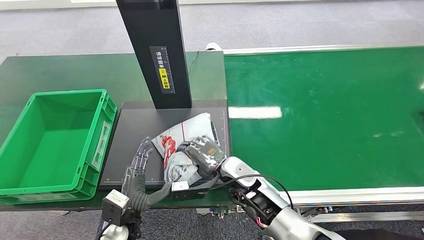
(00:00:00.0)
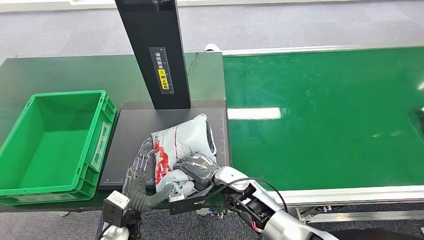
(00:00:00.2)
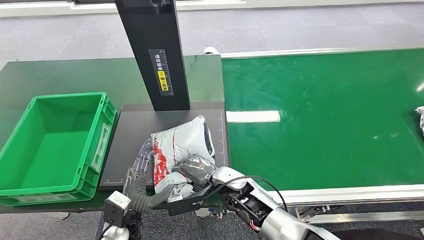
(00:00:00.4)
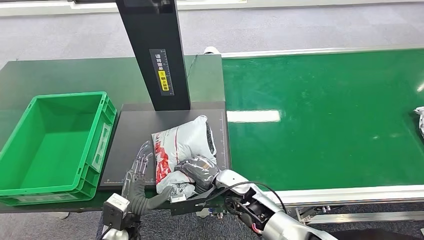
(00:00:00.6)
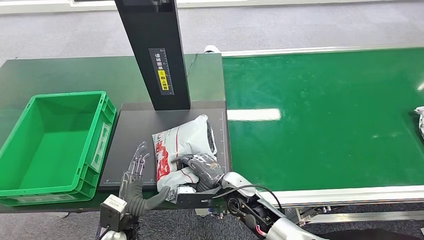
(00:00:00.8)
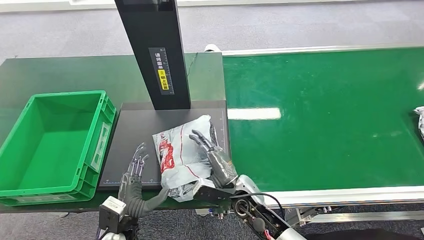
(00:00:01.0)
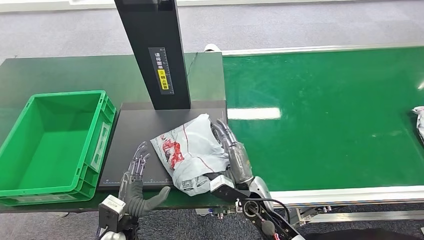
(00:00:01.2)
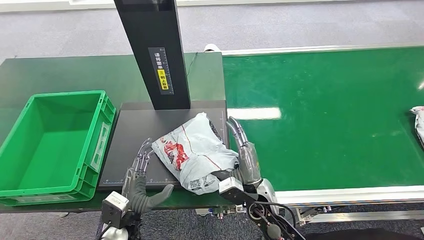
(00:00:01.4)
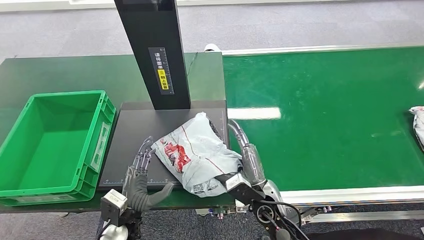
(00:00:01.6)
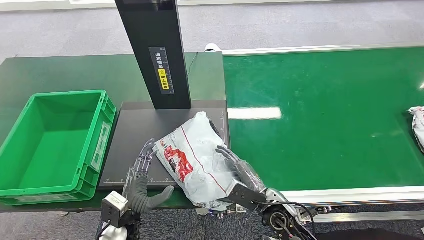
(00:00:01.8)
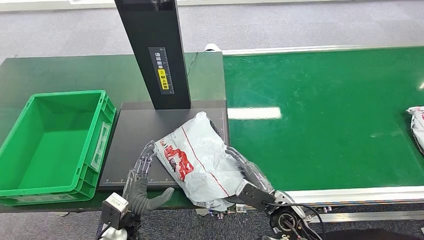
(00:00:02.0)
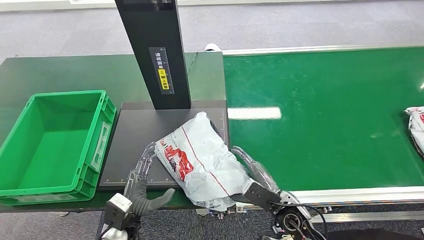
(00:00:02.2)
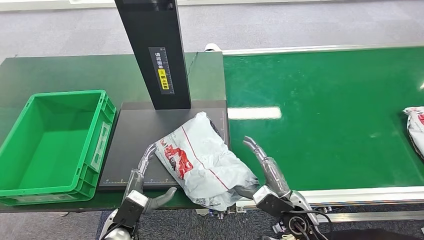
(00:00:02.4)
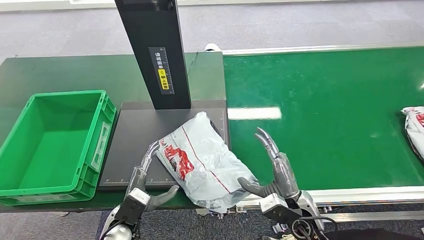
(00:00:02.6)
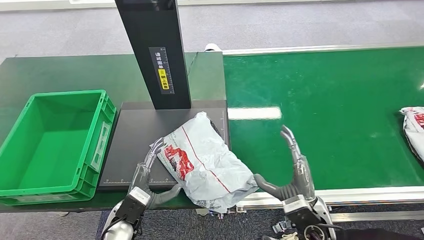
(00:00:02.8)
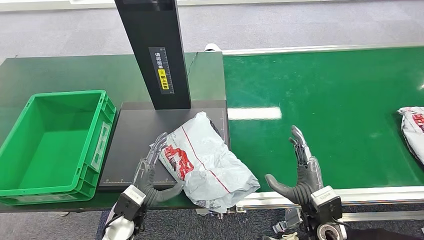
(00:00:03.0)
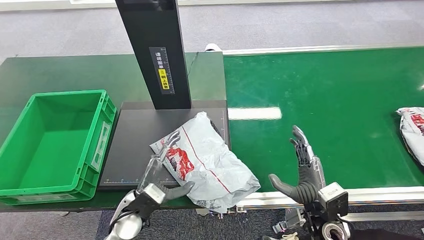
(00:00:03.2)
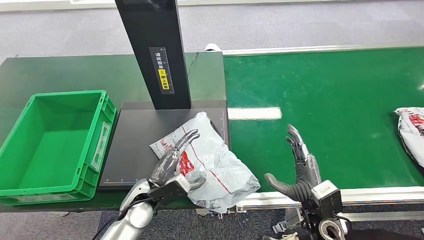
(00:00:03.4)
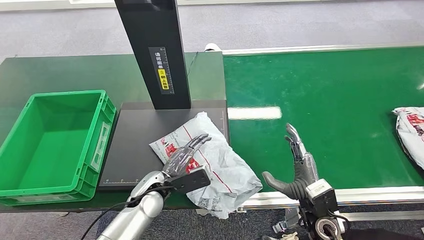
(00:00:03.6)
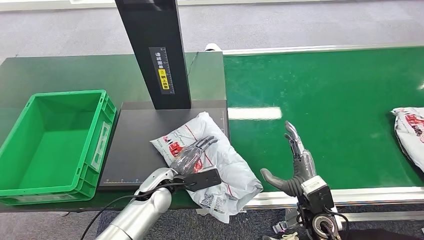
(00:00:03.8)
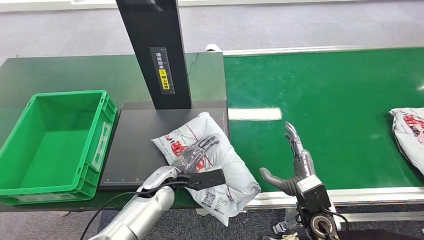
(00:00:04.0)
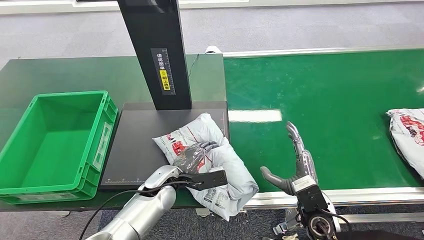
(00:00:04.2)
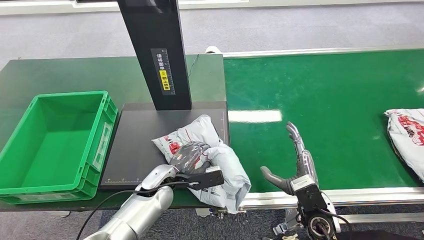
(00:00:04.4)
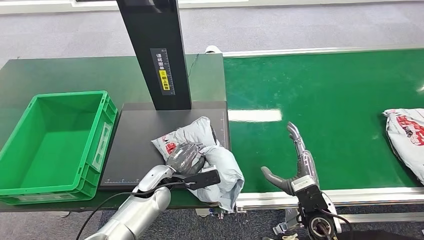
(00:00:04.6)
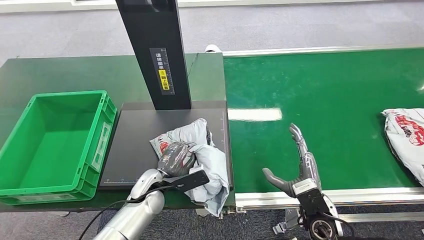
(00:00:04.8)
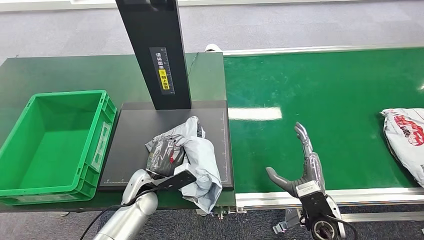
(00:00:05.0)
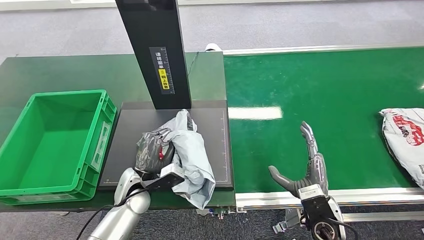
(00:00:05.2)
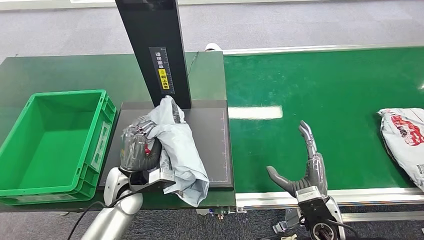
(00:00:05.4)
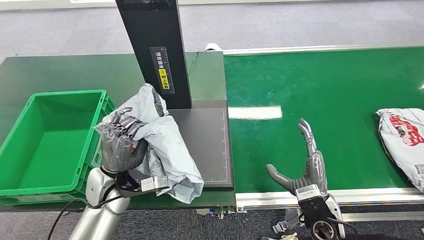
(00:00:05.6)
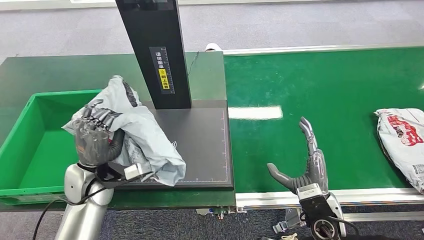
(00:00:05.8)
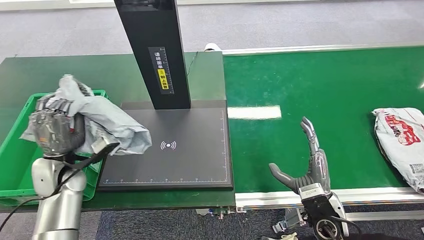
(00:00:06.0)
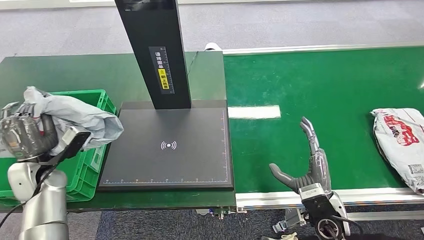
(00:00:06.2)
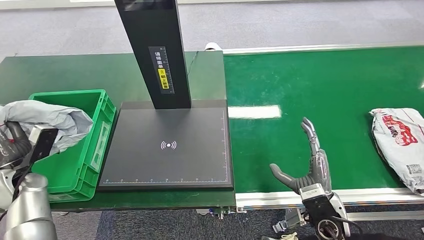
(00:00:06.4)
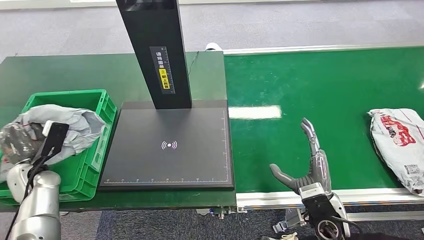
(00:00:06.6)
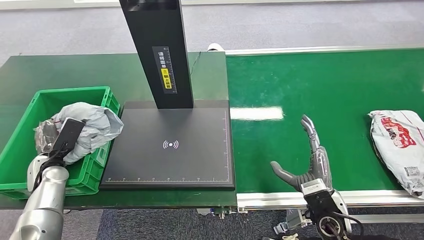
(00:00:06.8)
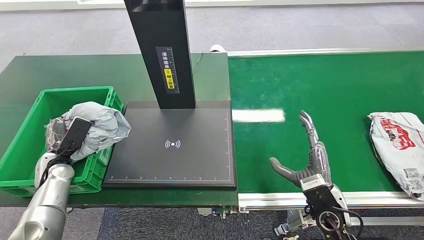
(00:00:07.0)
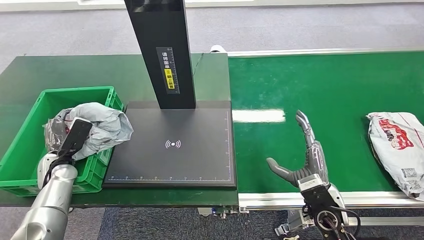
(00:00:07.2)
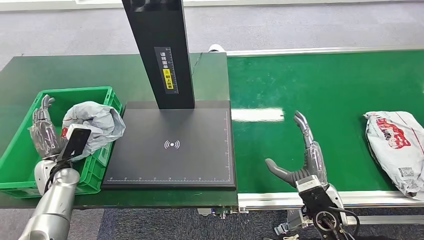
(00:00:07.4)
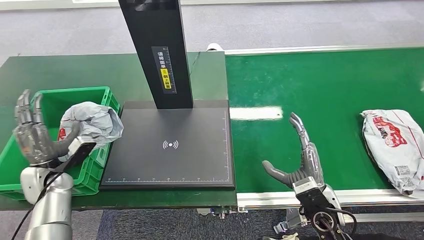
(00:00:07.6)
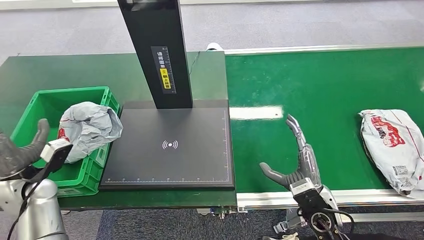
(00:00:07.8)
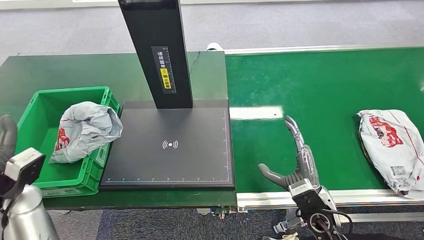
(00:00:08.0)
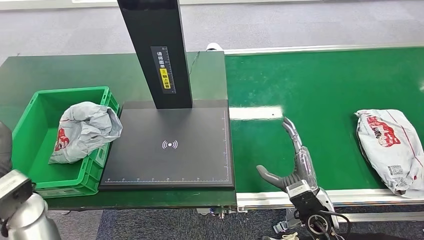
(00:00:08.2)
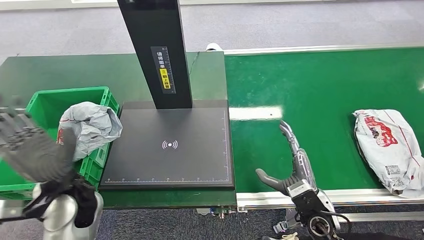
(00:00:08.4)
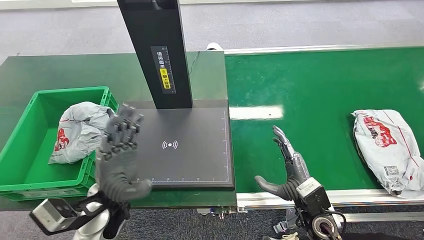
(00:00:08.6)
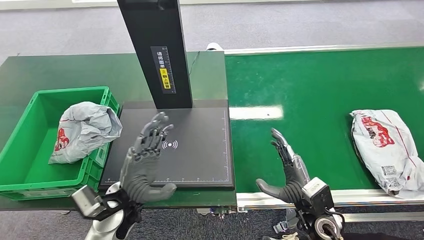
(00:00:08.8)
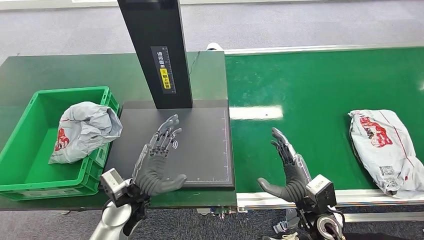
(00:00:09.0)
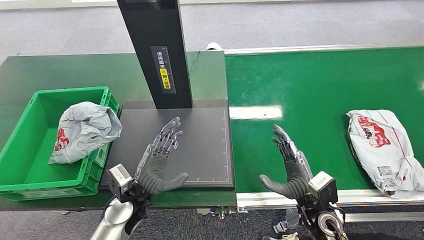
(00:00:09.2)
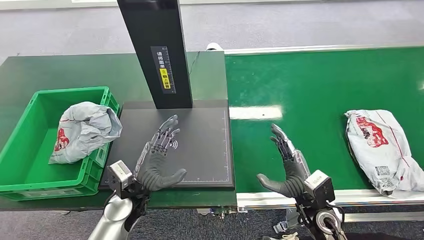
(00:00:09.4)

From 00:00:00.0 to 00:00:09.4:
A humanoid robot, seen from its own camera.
Step, from 00:00:02.0 to 00:00:05.6: Pick up the package from the inbound machine.
Step, from 00:00:05.8 to 00:00:09.2: Place the package into the parcel locker.
From 00:00:00.0 to 00:00:01.6: The right hand goes some 10 cm backward and to the right.
From 00:00:01.6 to 00:00:03.2: The right hand goes some 10 cm to the right.
From 00:00:03.2 to 00:00:04.8: The left hand heads forward, covering about 5 cm.
From 00:00:07.8 to 00:00:09.4: The left hand moves to the right, about 20 cm.

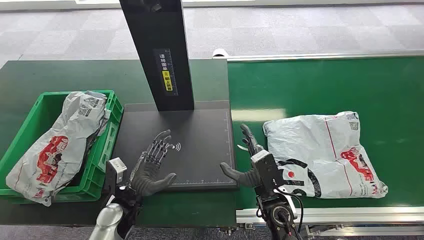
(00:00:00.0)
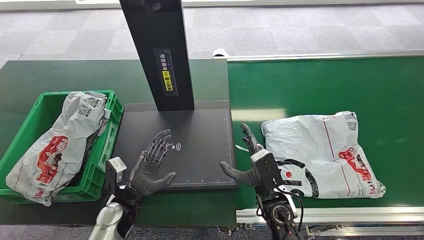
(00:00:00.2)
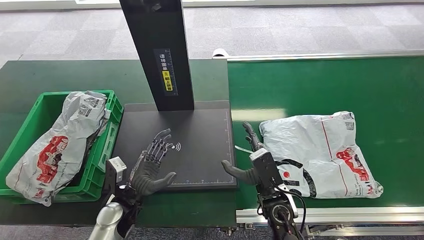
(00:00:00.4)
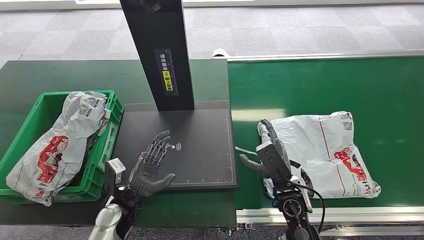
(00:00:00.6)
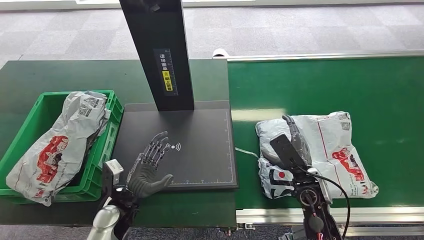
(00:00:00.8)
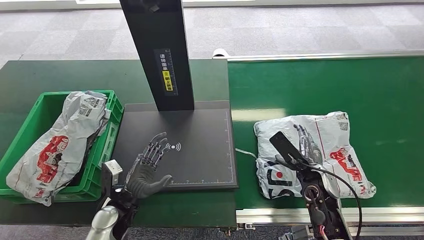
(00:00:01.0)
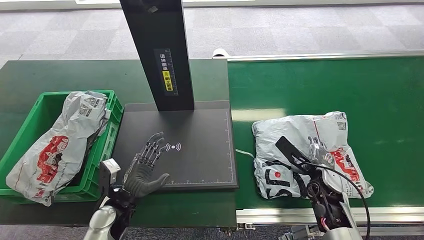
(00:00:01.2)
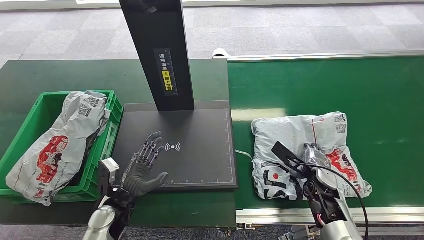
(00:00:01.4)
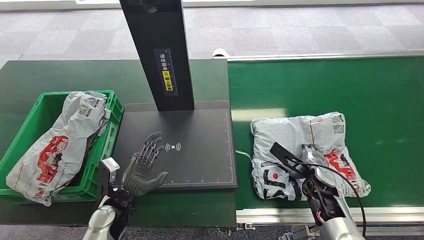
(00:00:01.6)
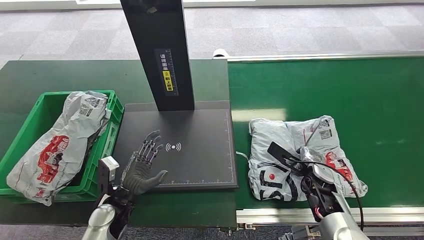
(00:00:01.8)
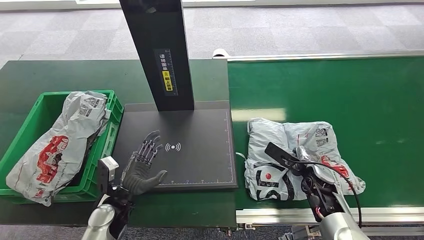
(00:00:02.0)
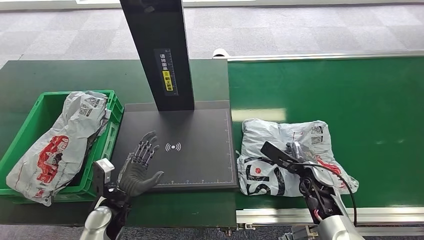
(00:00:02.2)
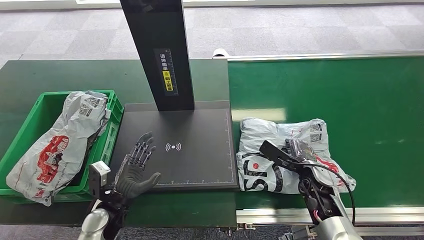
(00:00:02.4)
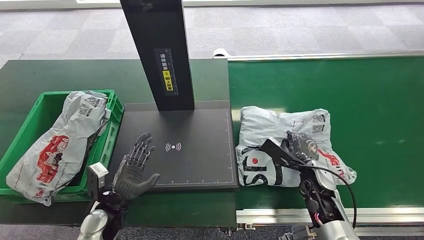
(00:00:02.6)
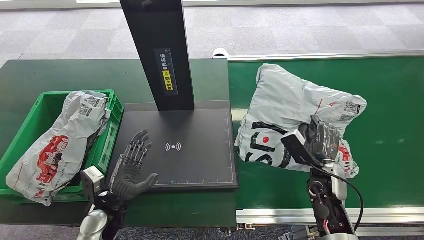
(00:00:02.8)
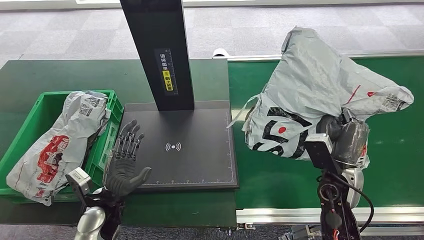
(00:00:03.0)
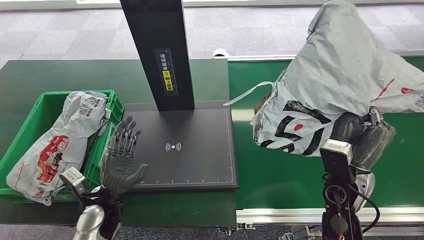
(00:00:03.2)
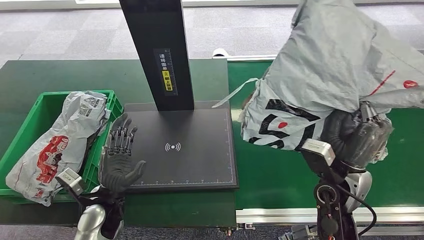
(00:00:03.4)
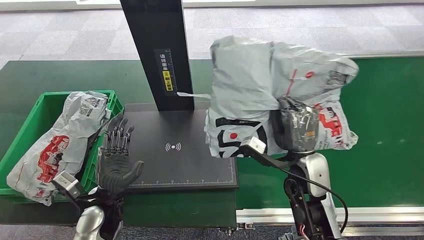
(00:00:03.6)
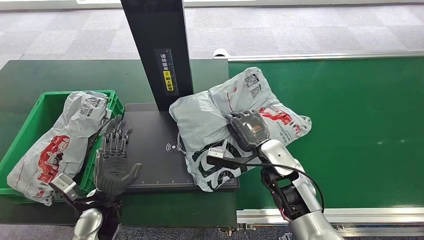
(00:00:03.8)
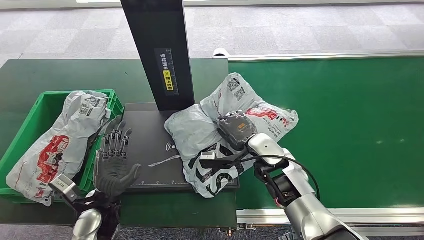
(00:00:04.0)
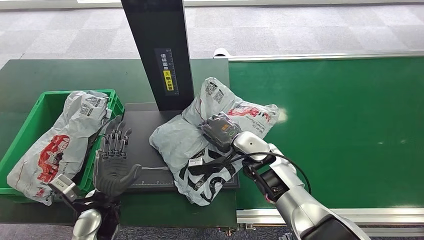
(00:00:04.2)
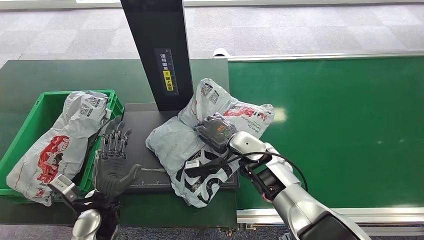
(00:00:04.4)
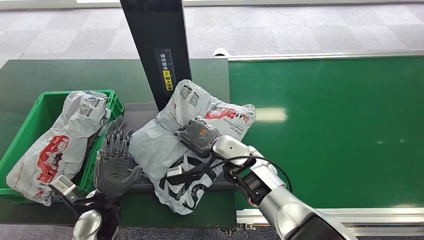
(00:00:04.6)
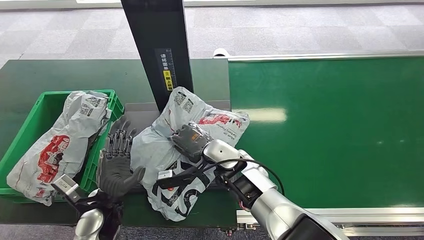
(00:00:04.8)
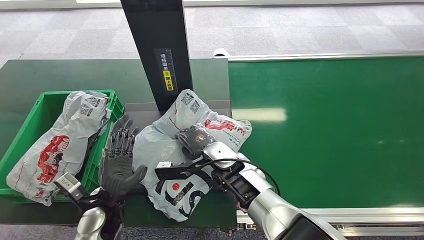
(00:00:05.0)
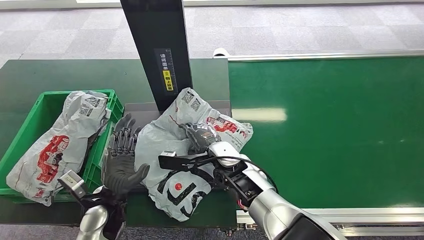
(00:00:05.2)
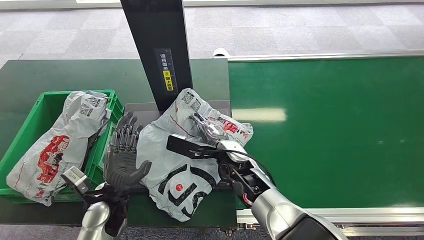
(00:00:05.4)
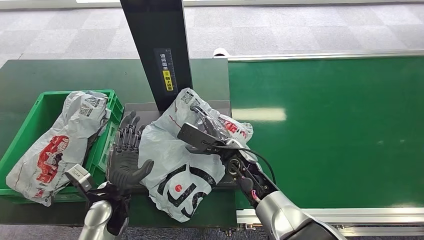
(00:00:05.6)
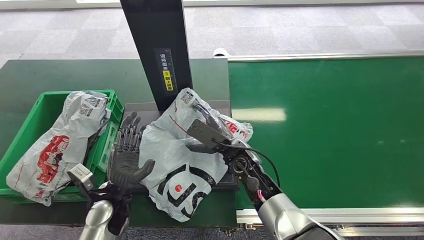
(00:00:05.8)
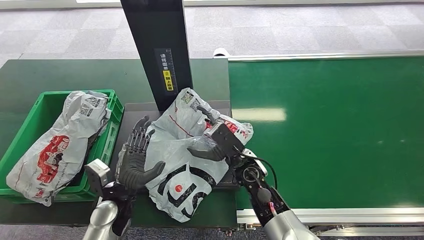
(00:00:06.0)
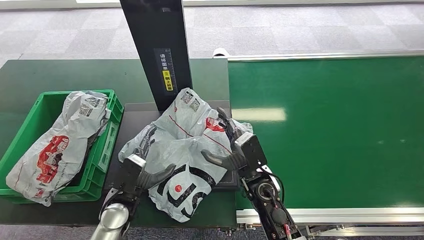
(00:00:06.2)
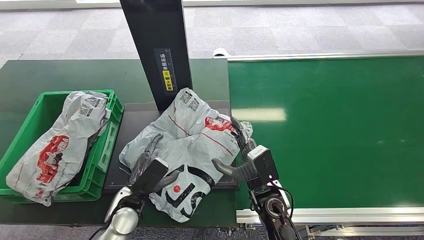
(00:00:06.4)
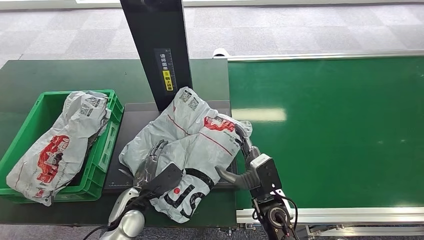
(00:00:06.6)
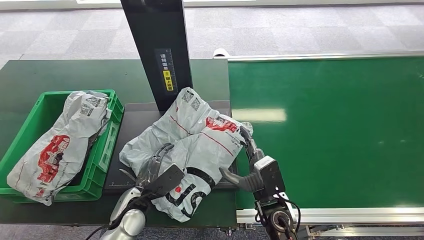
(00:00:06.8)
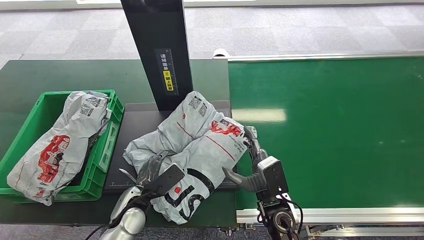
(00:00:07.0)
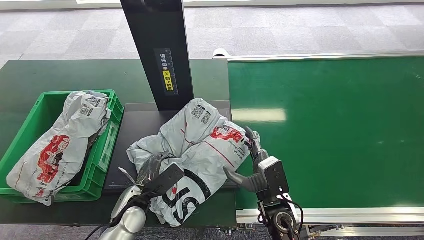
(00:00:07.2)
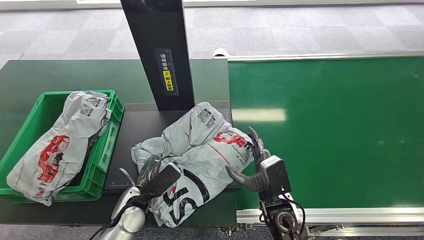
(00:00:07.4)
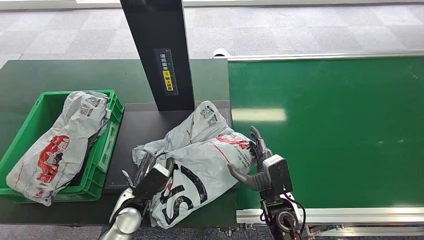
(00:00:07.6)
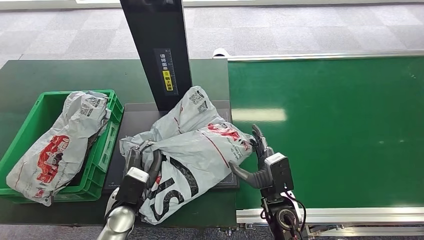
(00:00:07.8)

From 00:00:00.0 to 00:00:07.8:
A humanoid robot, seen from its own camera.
Step, from 00:00:00.0 to 00:00:03.2: Pick up the package from the conveyor belt.
Step, from 00:00:03.6 to 00:00:05.8: Place the package onto the inbound machine.
From 00:00:04.6 to 00:00:06.2: The right hand shifts roughly 5 cm backward.
From 00:00:06.2 to 00:00:07.8: The right hand travels backward by about 5 cm.
